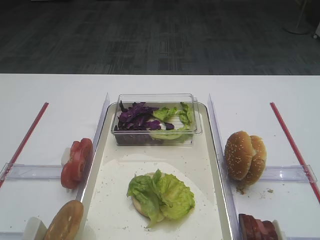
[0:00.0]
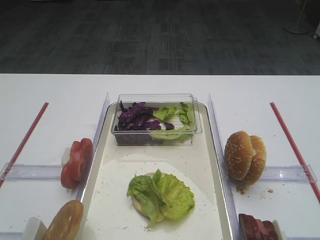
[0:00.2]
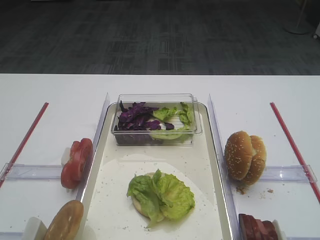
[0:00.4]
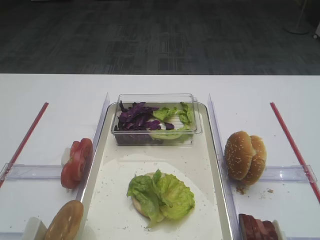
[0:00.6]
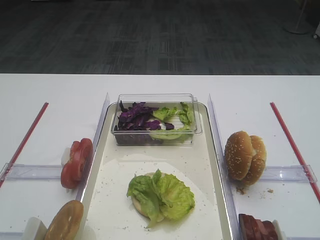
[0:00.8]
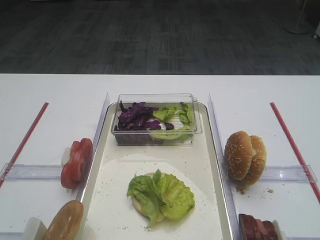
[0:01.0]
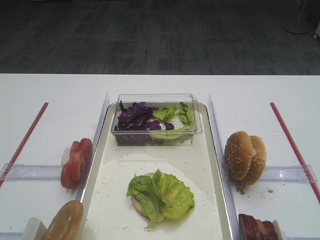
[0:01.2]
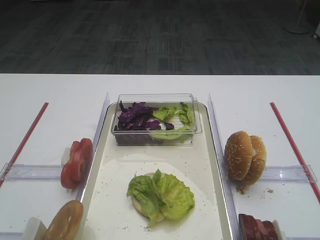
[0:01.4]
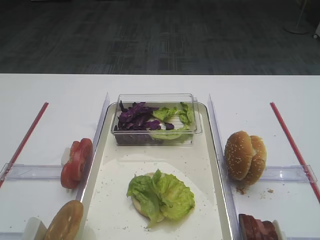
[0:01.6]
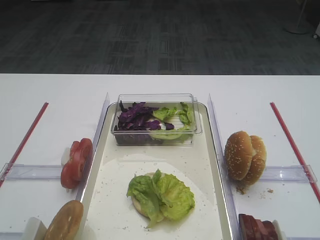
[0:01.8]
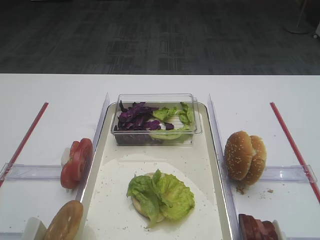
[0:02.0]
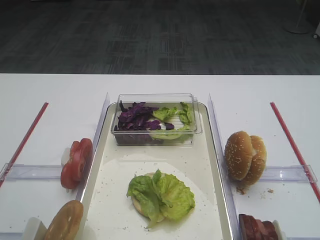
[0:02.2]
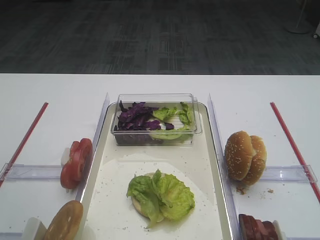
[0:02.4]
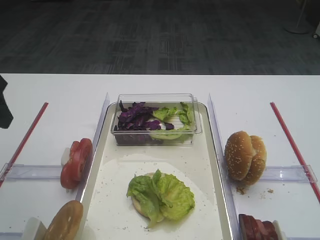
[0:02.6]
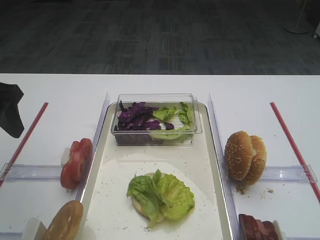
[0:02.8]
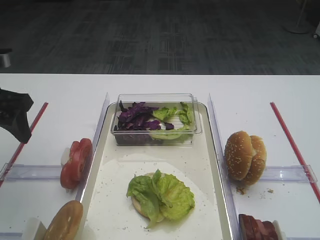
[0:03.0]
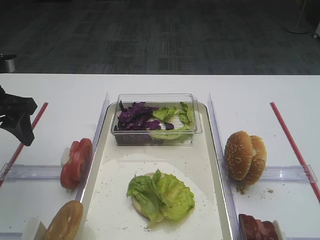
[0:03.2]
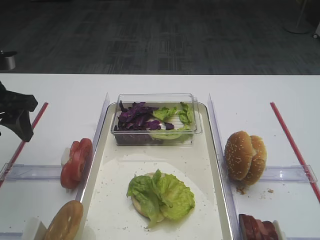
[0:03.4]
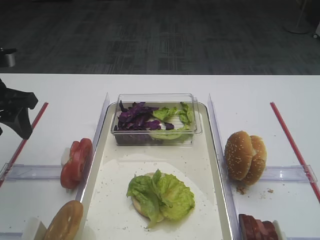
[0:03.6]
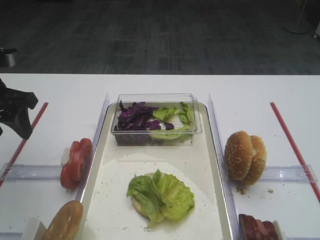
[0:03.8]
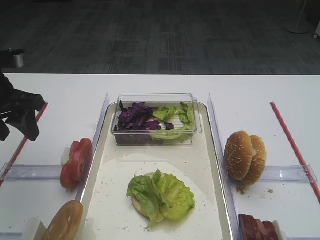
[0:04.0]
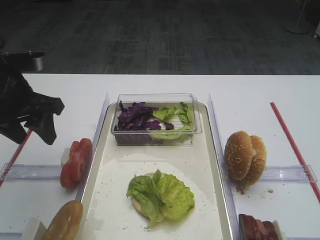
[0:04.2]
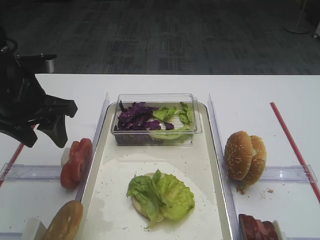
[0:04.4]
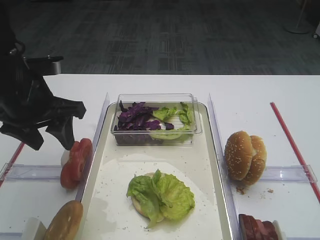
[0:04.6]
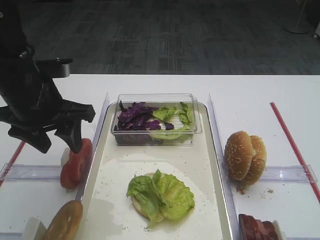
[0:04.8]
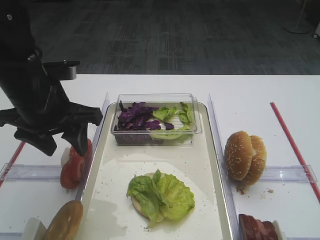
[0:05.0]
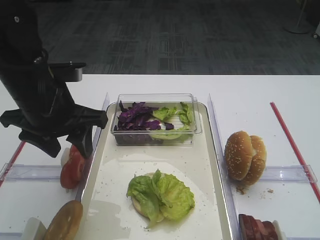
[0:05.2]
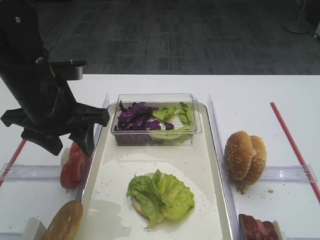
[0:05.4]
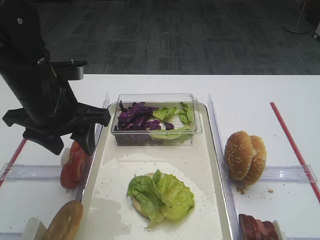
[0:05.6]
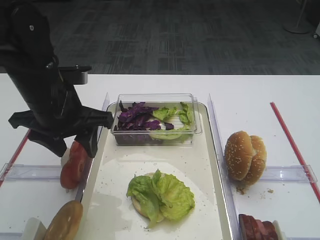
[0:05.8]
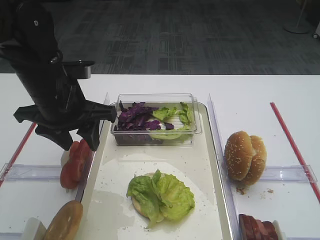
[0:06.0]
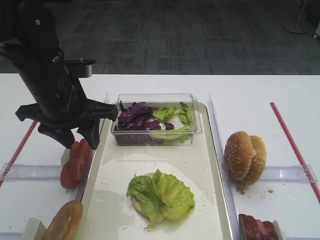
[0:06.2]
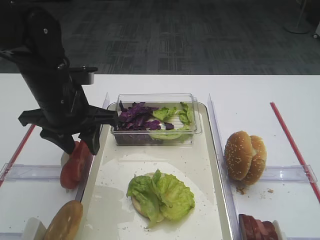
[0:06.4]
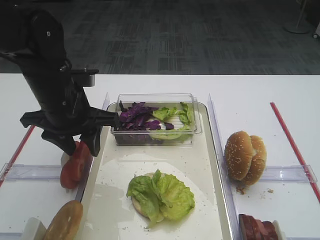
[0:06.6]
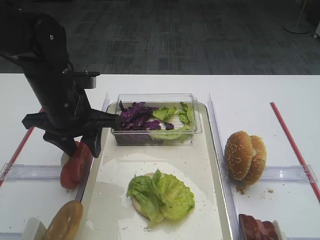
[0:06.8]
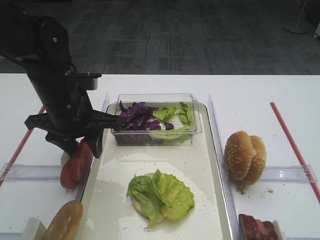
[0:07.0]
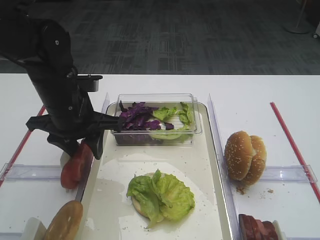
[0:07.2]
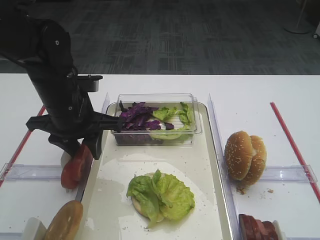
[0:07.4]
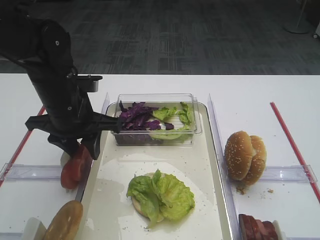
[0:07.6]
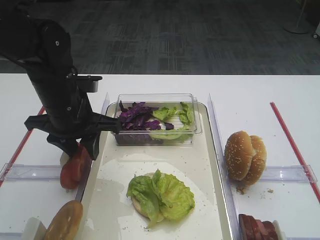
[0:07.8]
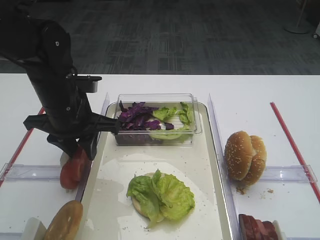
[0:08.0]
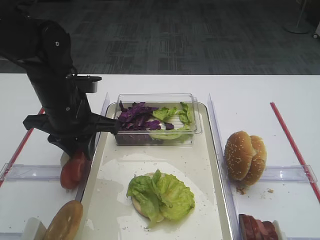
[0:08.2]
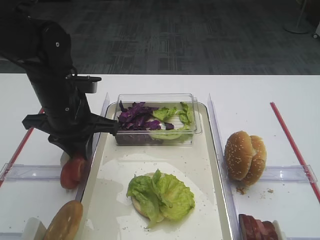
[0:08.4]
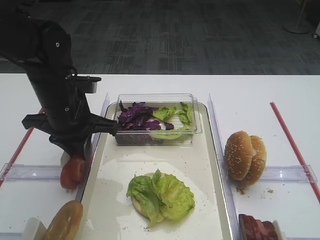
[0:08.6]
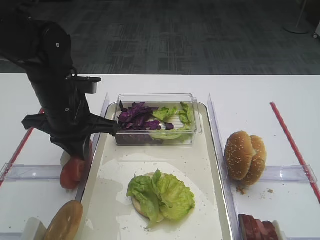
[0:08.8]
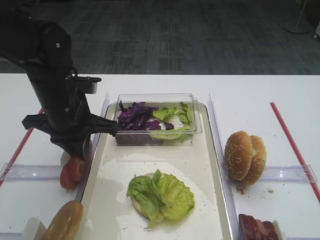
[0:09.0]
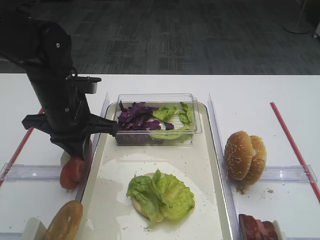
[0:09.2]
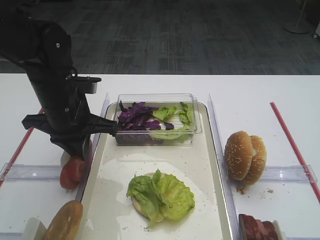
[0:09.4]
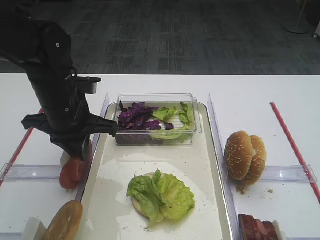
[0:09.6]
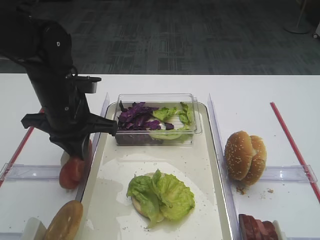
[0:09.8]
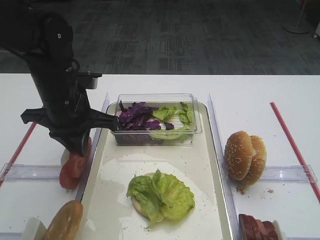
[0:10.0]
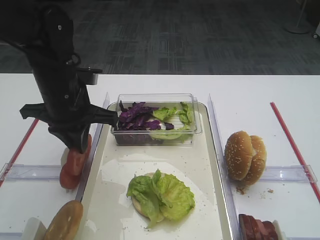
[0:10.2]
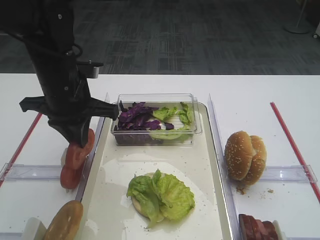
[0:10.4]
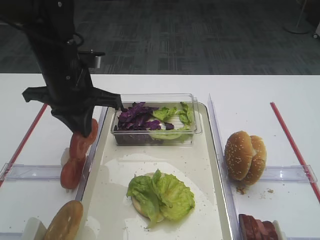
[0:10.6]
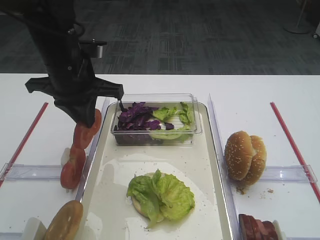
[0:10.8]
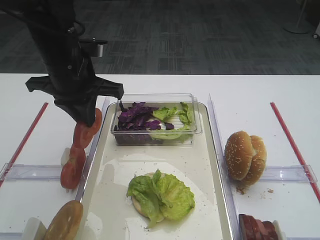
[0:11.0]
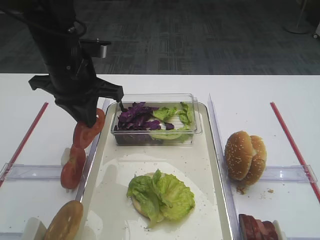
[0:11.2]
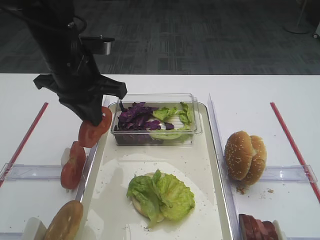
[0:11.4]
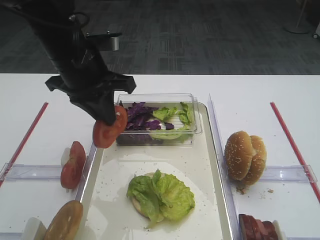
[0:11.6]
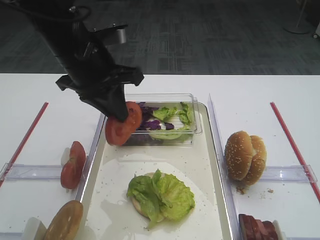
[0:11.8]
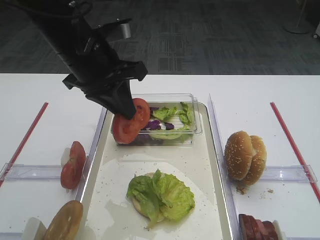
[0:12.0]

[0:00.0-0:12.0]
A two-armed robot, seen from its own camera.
Step, 0:00.0 to 0:11.0: Pick up the tomato slice with the left gripper.
0:01.6 to 0:03.0: The left gripper goes about 30 cm forward.
0:03.0 to 0:04.4: The left gripper moves to the right, approximately 5 cm.
0:04.4 to 0:06.0: The left gripper moves to the right, about 5 cm.
0:06.0 to 0:07.6: There are only small adjustments of the grippers.
0:07.6 to 0:09.0: The left gripper closes up.
0:09.0 to 0:10.4: The grippers stay close to where they were, moving slightly.
0:10.4 to 0:12.0: The left gripper heads upward, covering some 5 cm.

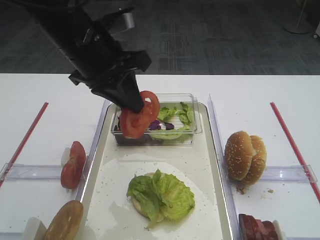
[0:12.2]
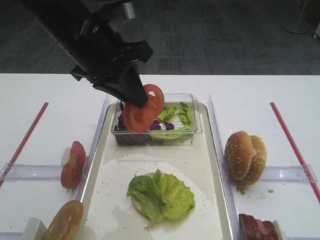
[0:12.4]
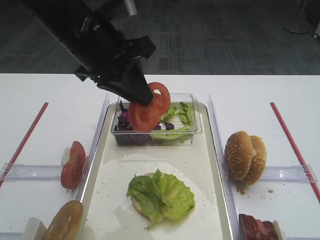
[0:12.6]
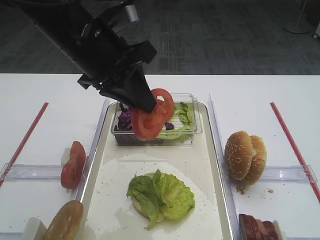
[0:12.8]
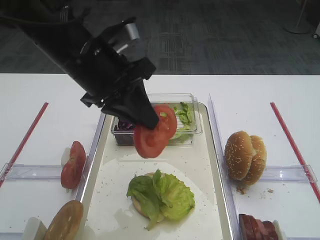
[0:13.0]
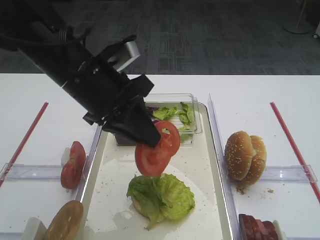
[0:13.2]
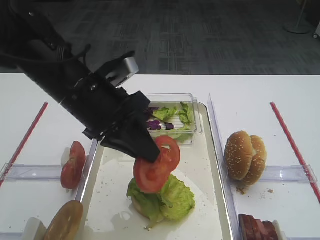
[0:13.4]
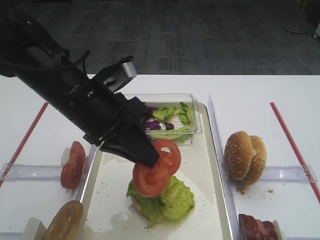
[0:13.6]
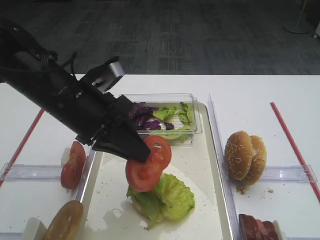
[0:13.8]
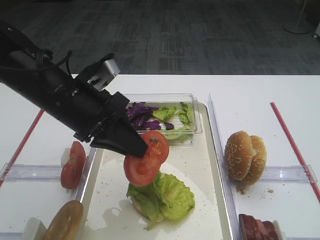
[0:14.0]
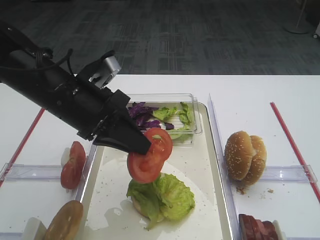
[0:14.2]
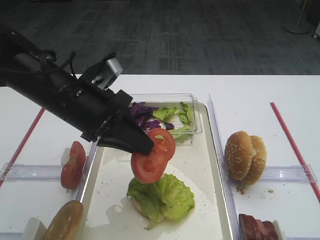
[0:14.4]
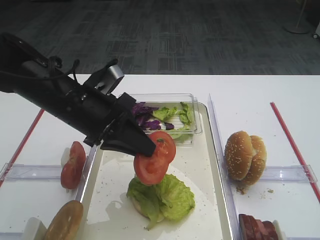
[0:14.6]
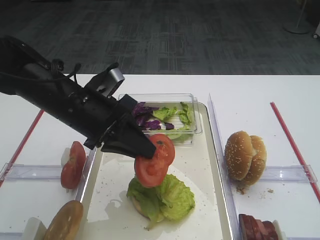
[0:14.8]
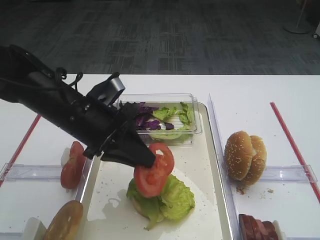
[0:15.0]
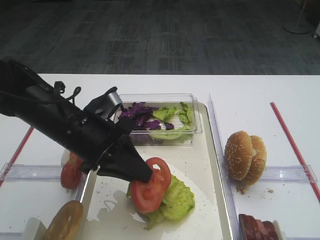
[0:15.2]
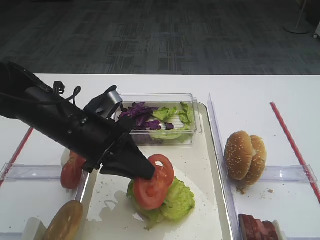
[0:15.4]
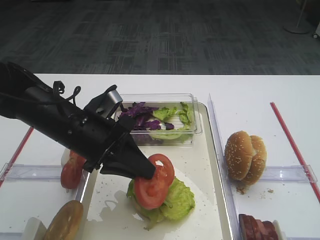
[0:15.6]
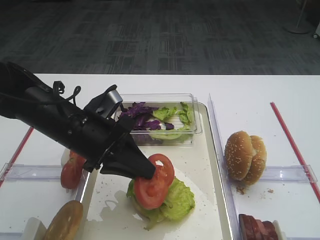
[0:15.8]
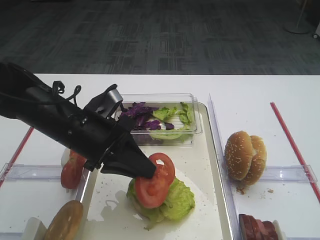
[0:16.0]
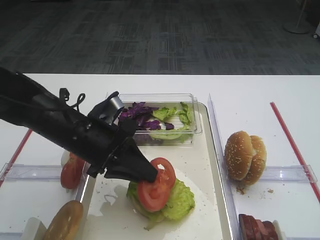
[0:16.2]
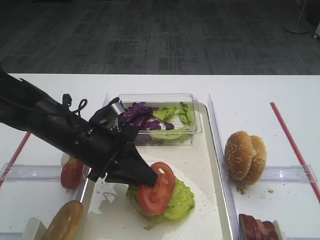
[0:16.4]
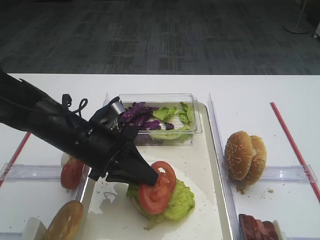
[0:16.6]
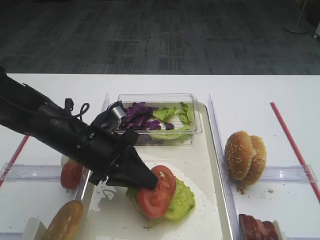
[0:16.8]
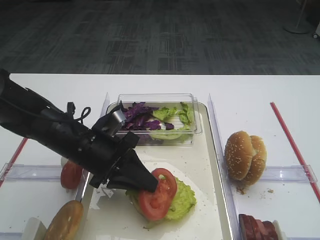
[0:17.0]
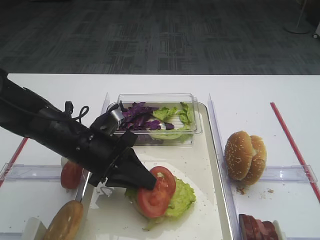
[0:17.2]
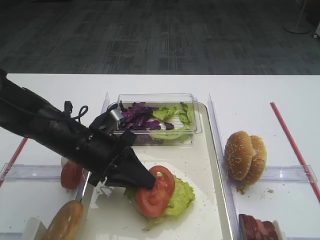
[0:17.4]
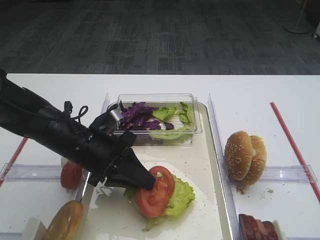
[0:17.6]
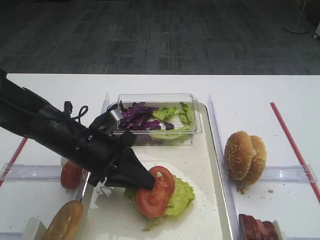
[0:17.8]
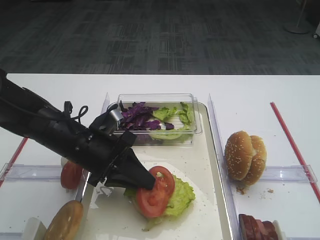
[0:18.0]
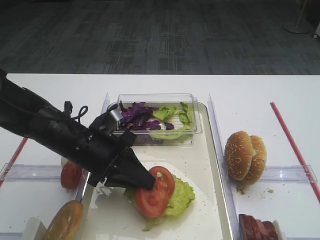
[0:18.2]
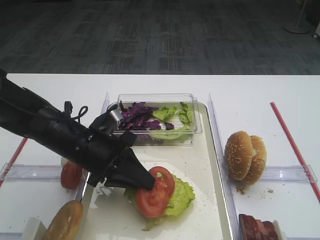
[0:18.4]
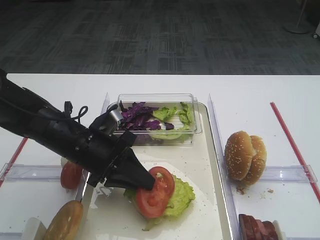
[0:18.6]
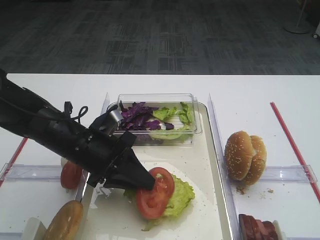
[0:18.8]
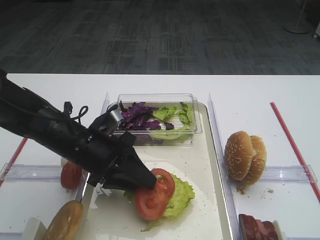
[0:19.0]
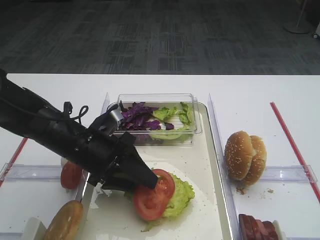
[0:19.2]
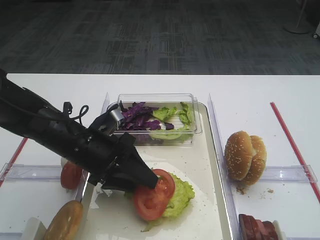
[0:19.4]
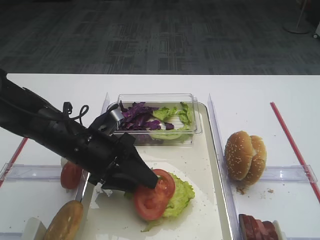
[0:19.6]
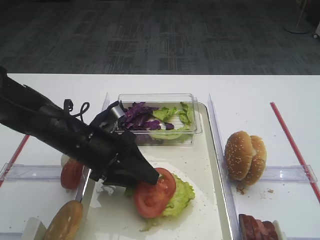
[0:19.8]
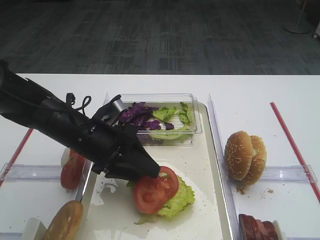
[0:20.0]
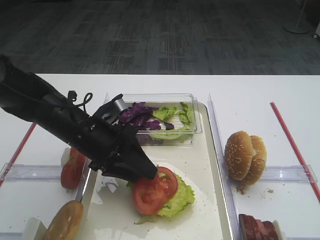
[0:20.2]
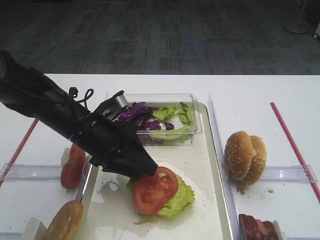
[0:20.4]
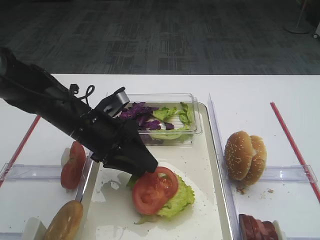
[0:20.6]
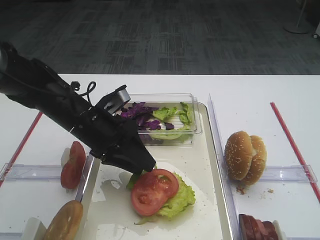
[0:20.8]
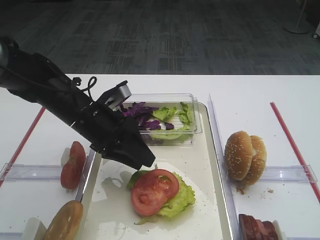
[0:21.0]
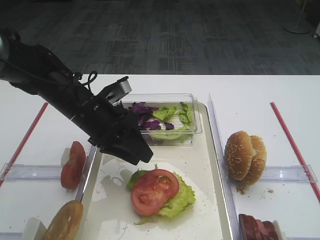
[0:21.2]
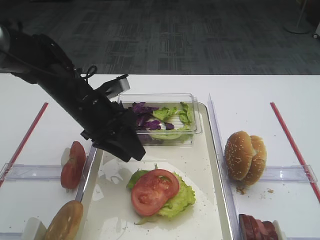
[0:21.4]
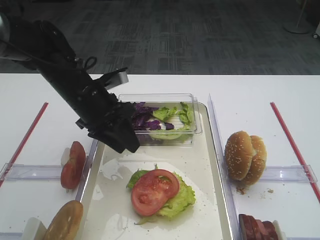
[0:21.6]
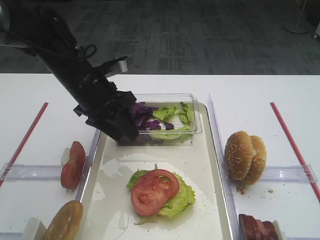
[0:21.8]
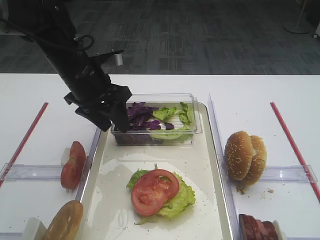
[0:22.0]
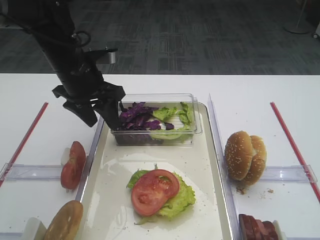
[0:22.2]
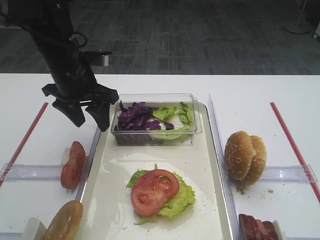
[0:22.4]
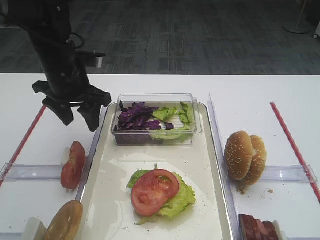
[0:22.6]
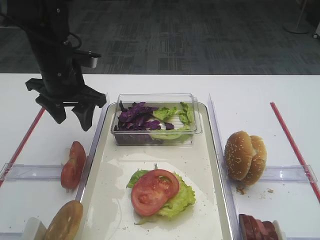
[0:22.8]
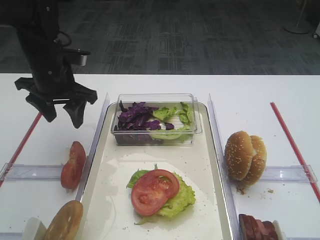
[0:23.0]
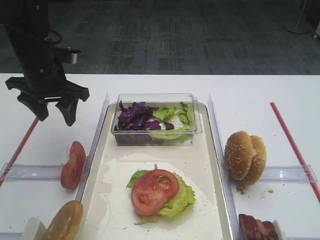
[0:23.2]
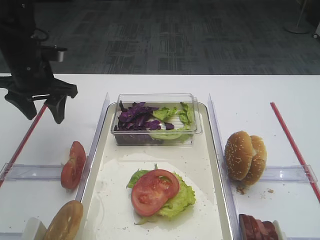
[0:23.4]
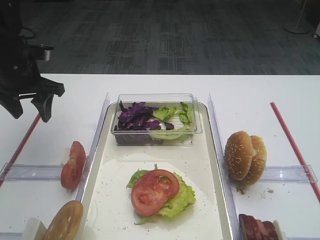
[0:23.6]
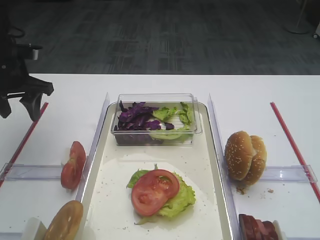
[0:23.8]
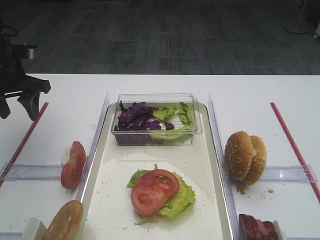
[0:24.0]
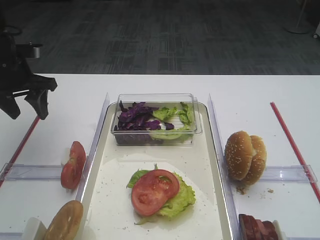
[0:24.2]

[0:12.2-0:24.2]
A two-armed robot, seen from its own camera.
Step, 0:12.2 to 0:21.4: Place the tomato slice on the lettuce leaf with the left gripper.
0:12.2 to 0:13.8: The left gripper is displaced downward by about 5 cm.
0:13.8 to 0:15.2: The left gripper goes some 5 cm downward.
0:15.2 to 0:18.2: The grippers move only a little.
0:18.2 to 0:19.8: The left gripper opens its fingers.
0:19.8 to 0:21.2: The left gripper moves about 5 cm.
0:21.2 to 0:22.6: The left gripper moves forward and upward, about 10 cm, and opens up.
0:22.6 to 0:24.2: The left gripper shifts about 10 cm to the left.
